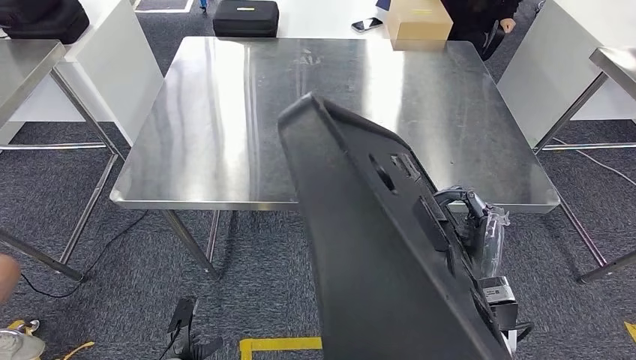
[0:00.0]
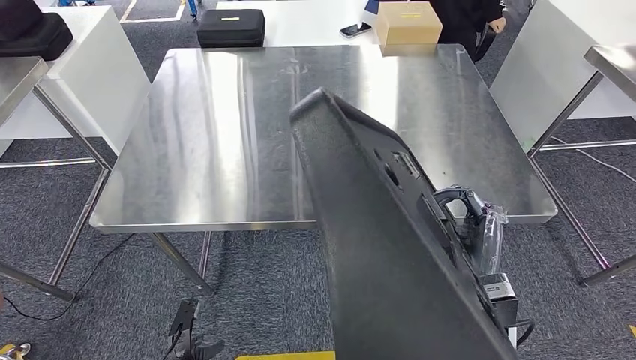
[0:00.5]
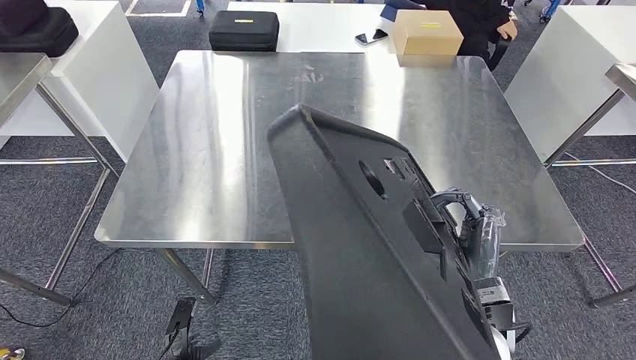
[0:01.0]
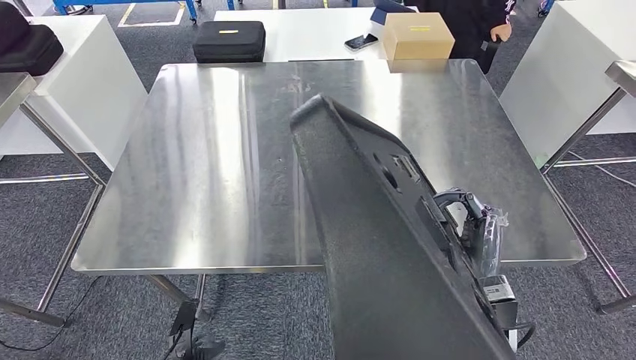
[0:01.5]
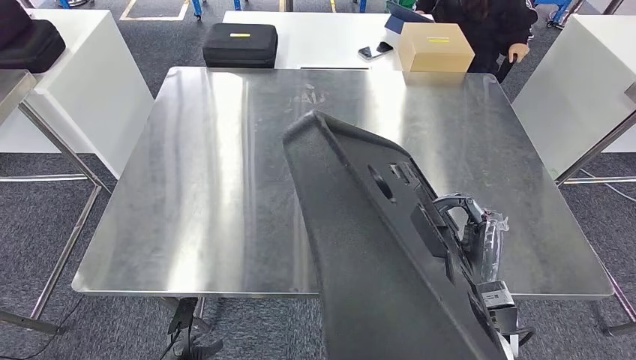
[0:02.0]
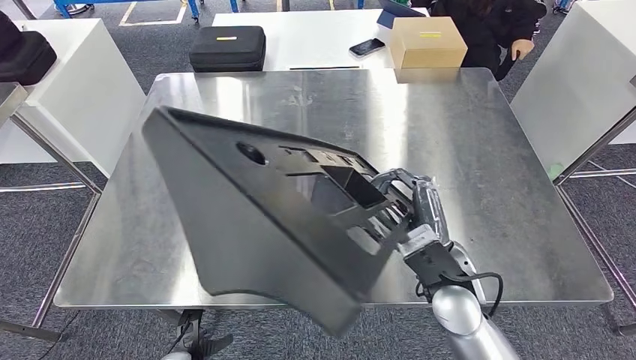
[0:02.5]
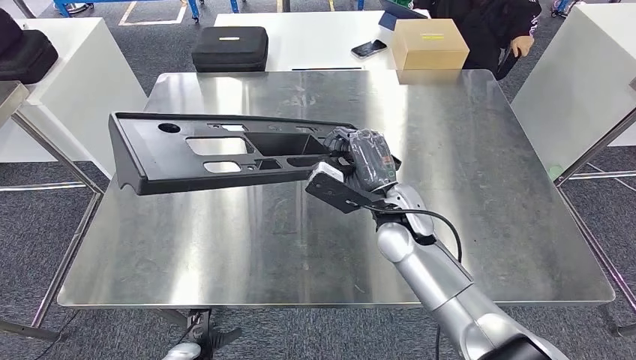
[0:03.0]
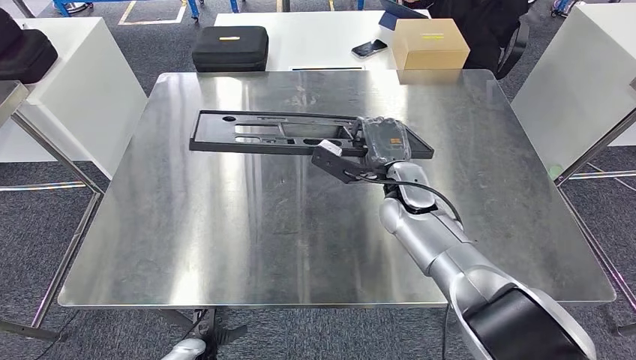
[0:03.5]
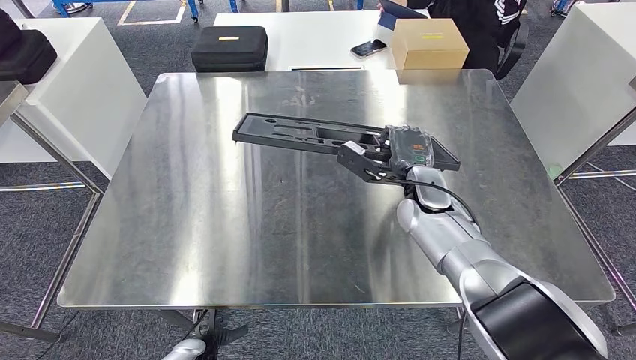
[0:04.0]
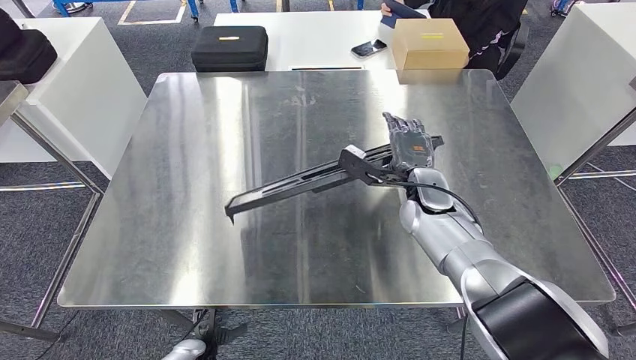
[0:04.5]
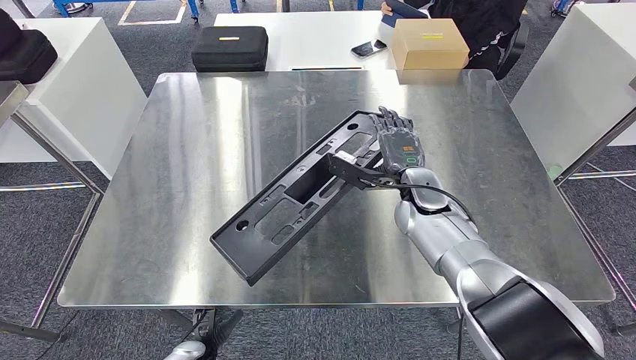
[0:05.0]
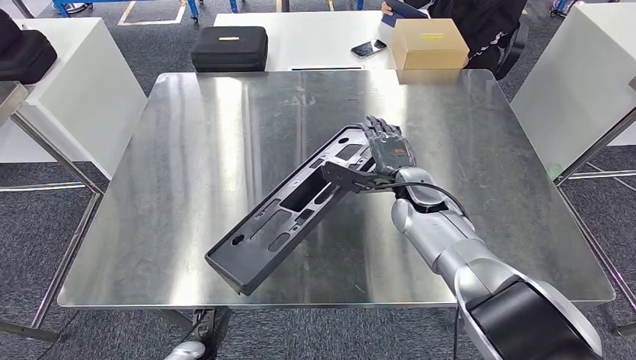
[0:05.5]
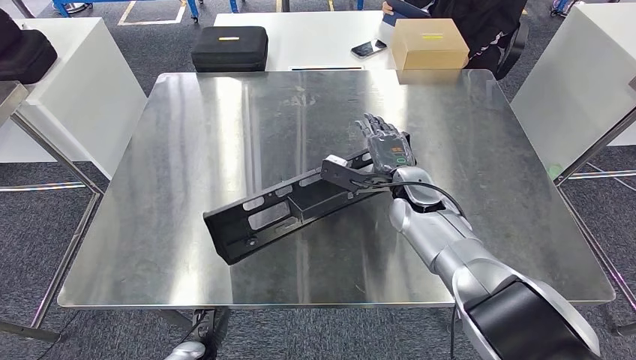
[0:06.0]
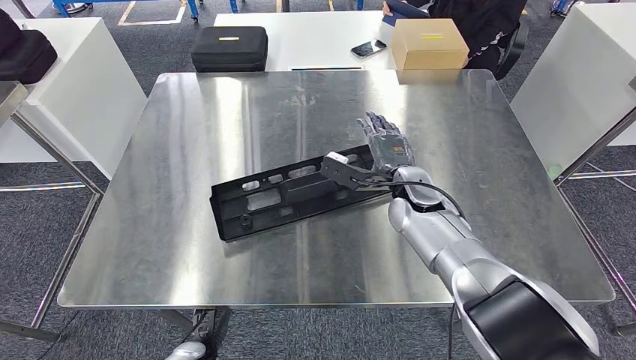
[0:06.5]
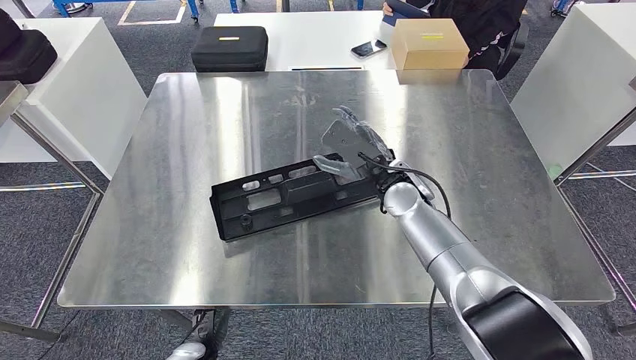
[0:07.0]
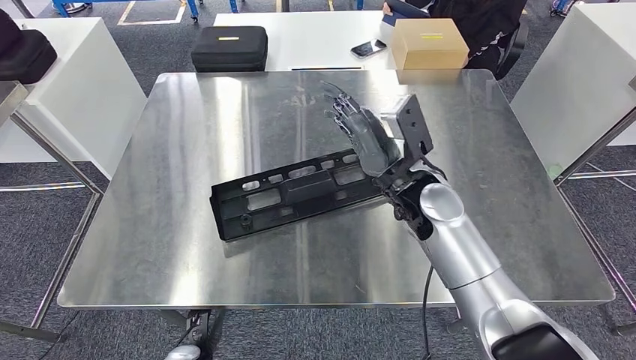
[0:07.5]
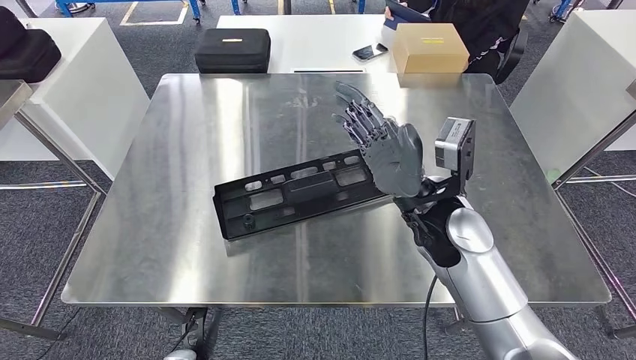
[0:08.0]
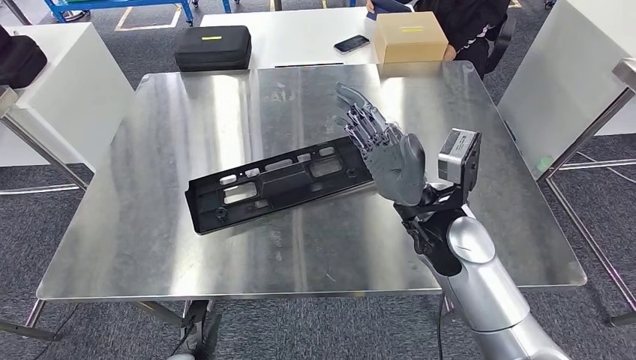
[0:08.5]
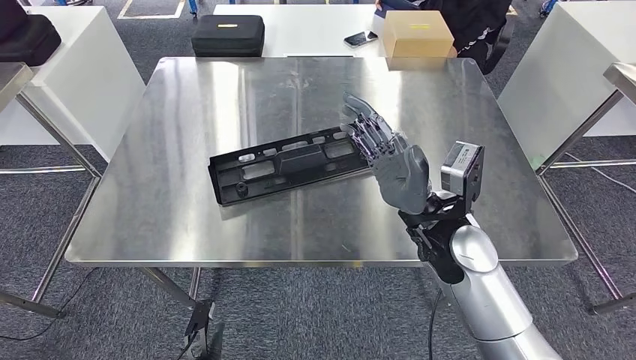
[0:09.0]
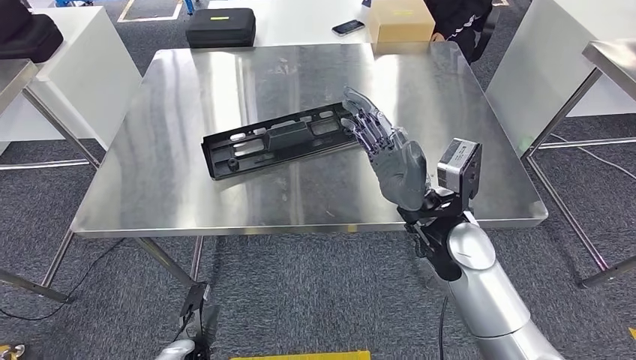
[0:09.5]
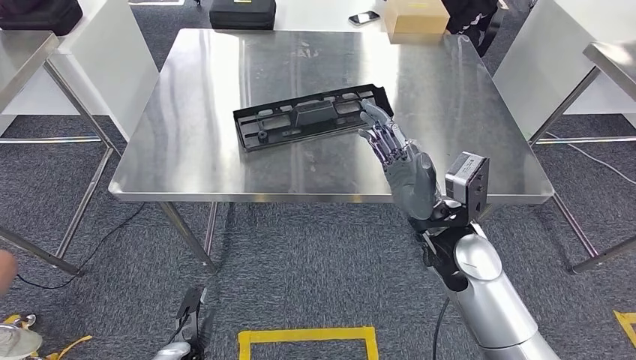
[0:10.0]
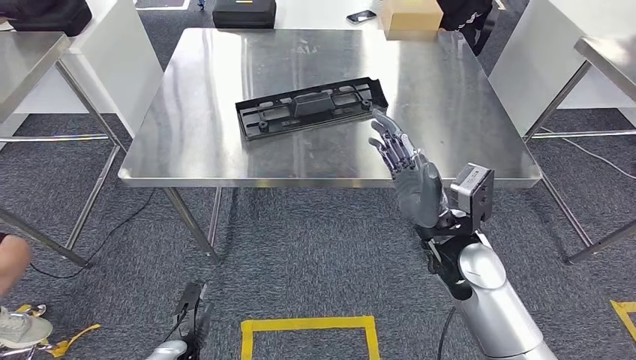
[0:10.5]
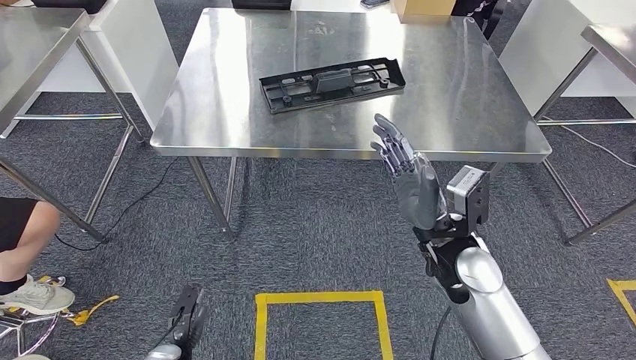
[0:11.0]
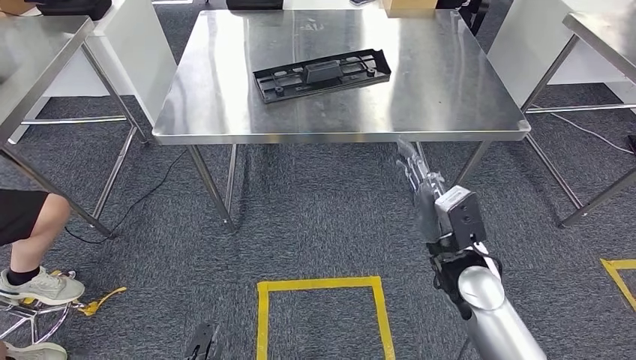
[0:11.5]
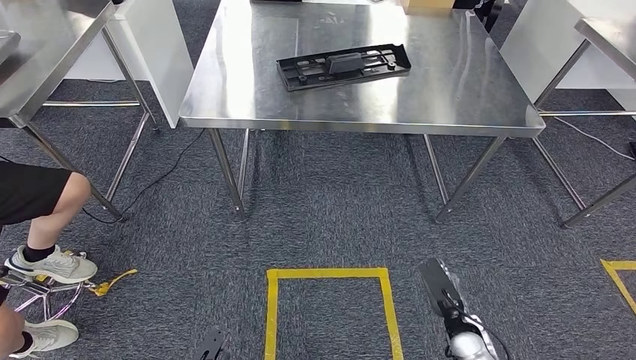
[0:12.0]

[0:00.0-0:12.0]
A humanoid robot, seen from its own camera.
Step, 0:00.0 to 0:09.5: Insert the large material into the corresponding slot on the workbench.
0:04.0 to 0:06.0: The hands make only small movements.

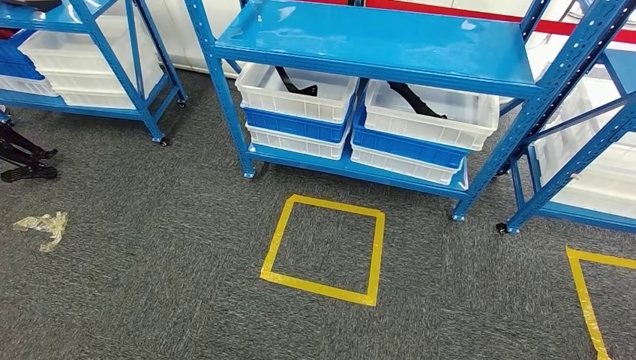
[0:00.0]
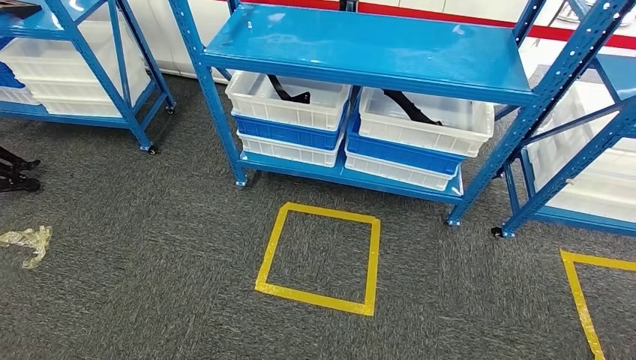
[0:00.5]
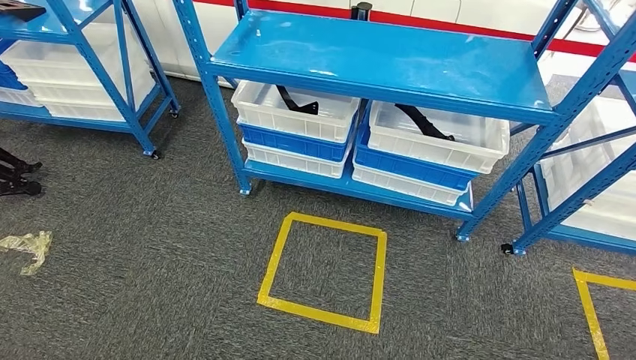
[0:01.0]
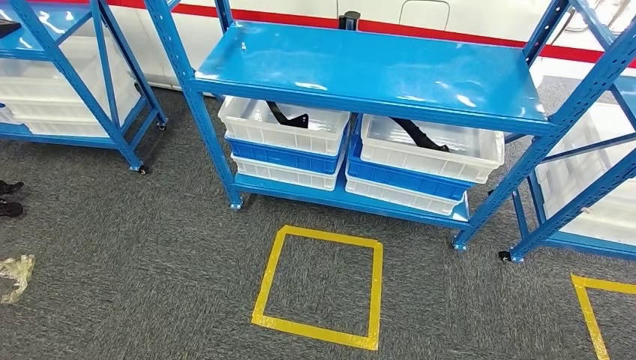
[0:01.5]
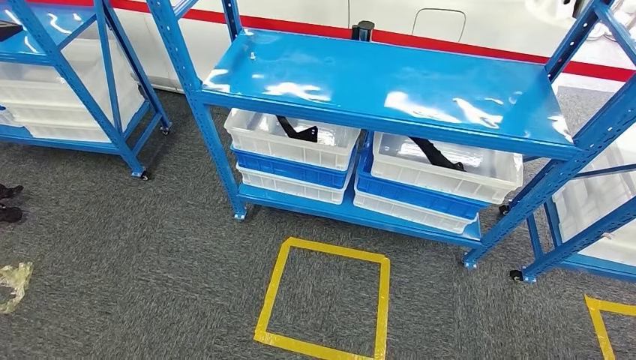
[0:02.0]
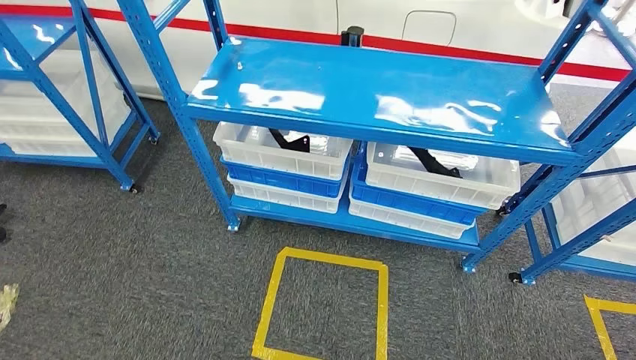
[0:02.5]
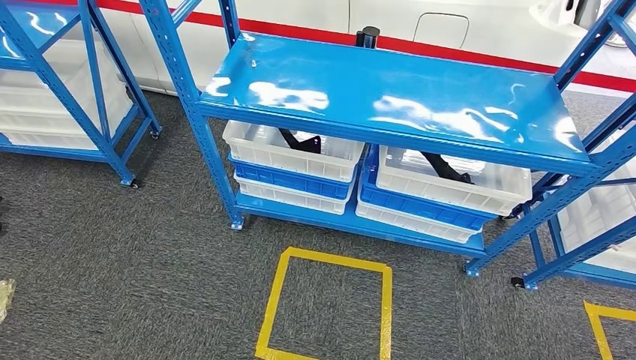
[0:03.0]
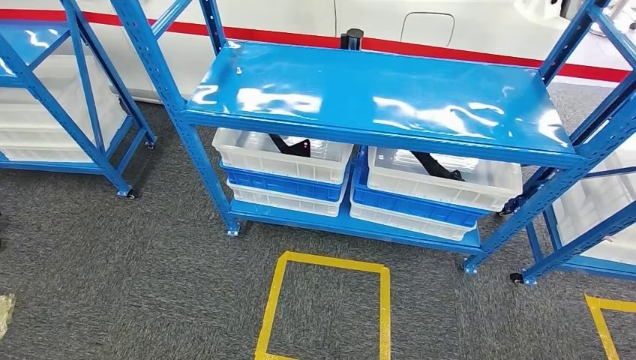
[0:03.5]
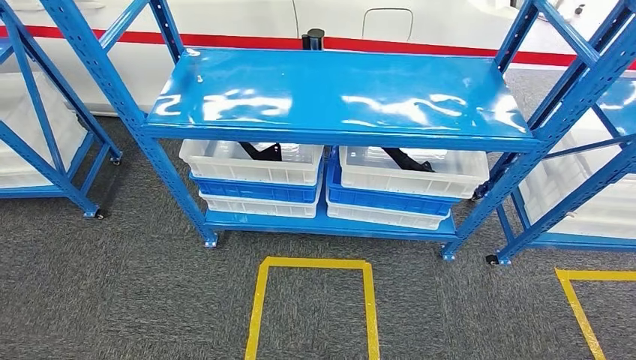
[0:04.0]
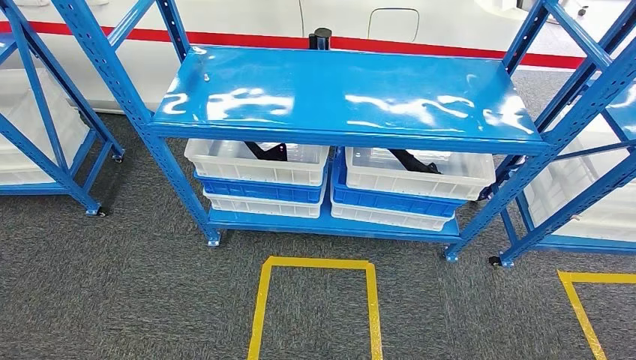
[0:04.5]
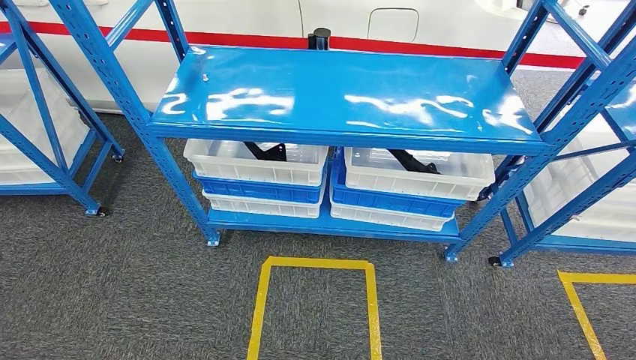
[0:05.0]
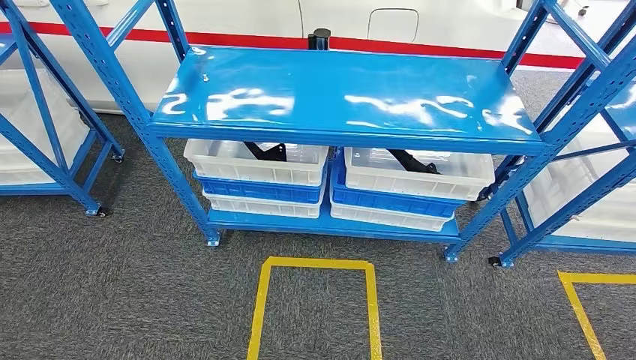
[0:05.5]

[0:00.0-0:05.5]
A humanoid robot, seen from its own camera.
Step, 0:00.0 to 0:05.0: Return to the initial position at the shelf.
